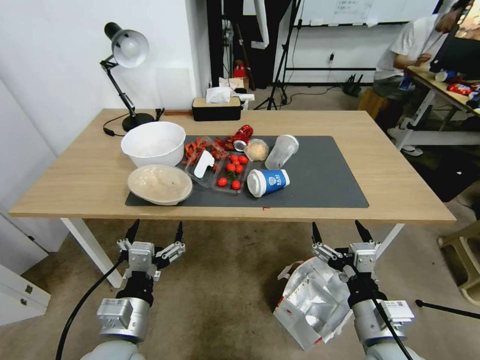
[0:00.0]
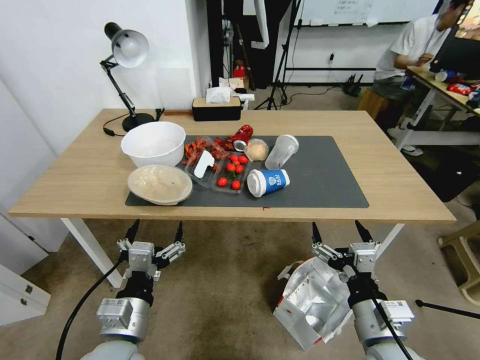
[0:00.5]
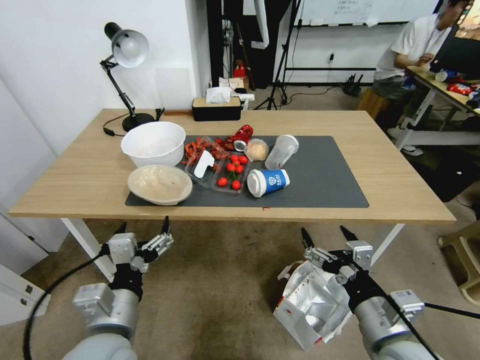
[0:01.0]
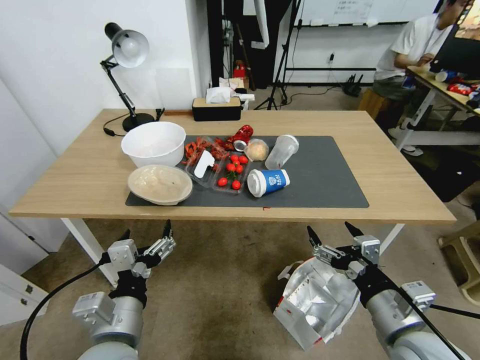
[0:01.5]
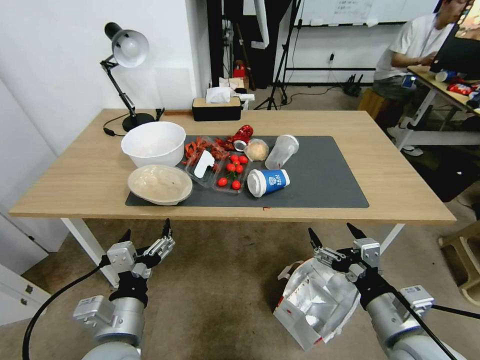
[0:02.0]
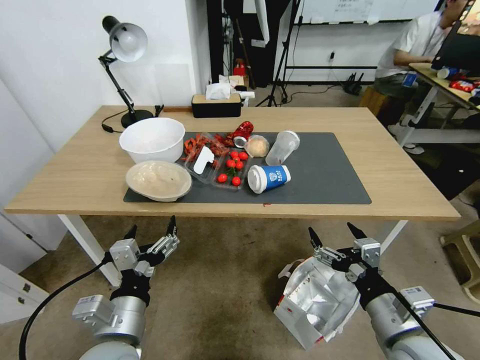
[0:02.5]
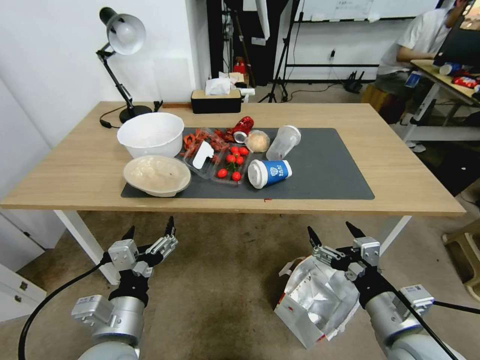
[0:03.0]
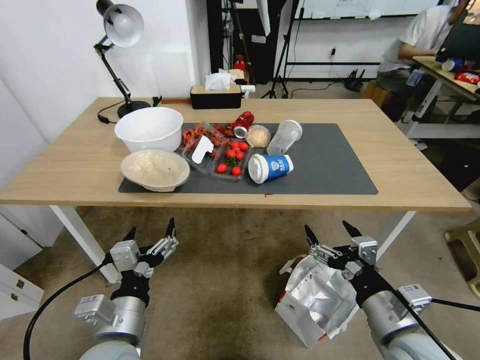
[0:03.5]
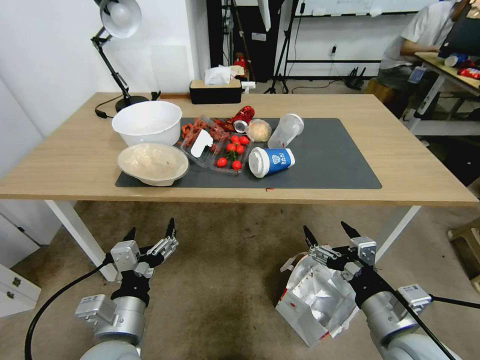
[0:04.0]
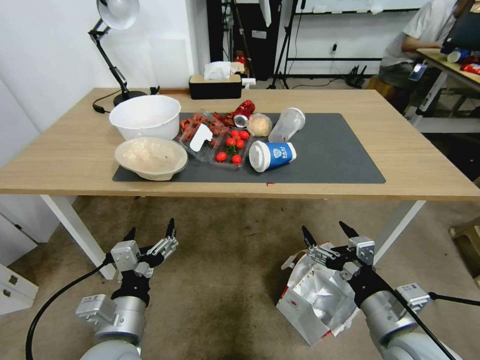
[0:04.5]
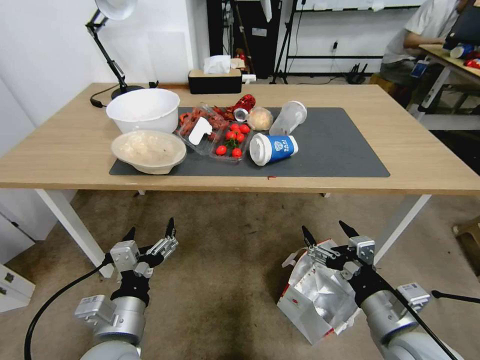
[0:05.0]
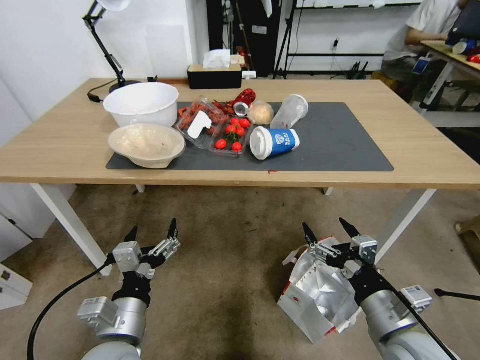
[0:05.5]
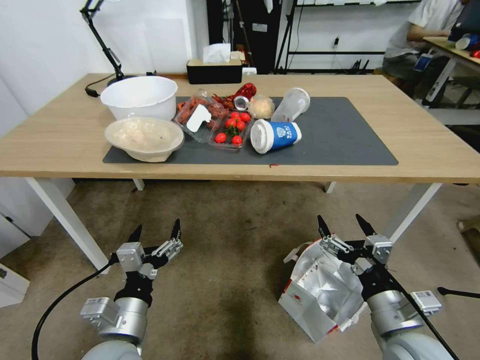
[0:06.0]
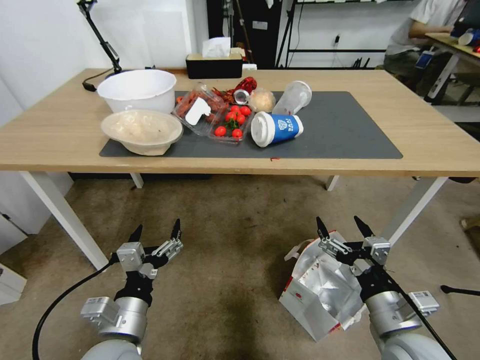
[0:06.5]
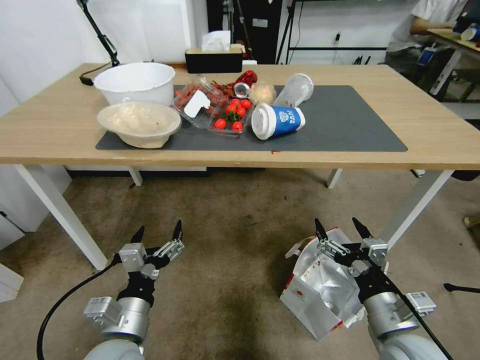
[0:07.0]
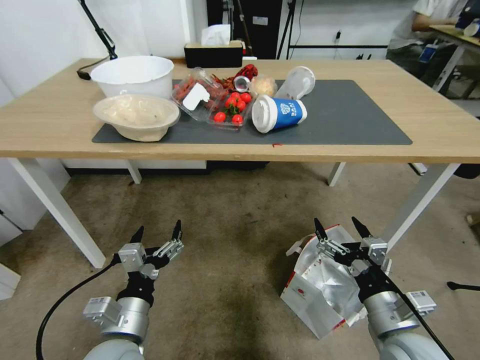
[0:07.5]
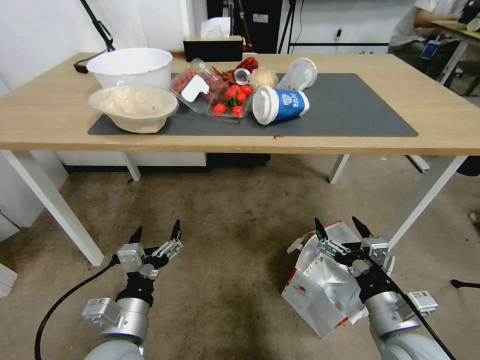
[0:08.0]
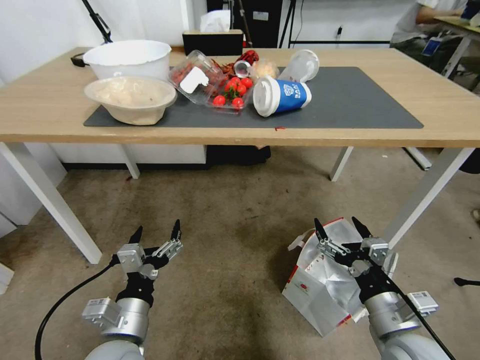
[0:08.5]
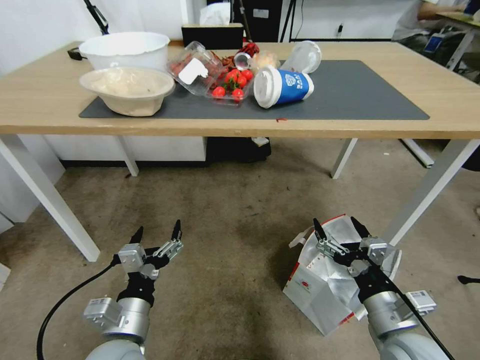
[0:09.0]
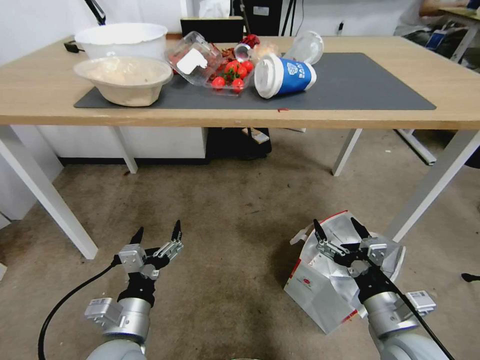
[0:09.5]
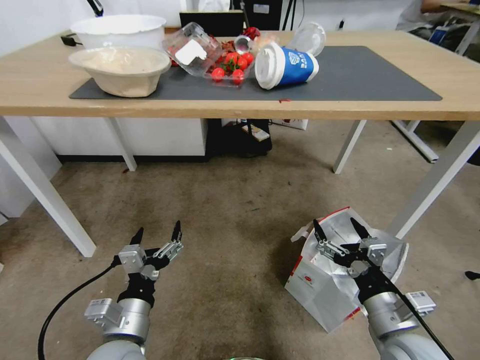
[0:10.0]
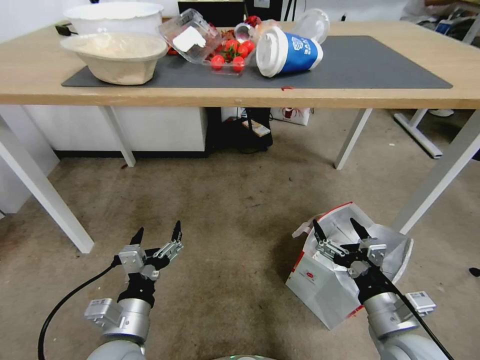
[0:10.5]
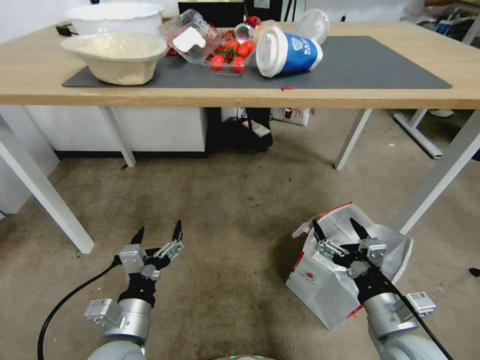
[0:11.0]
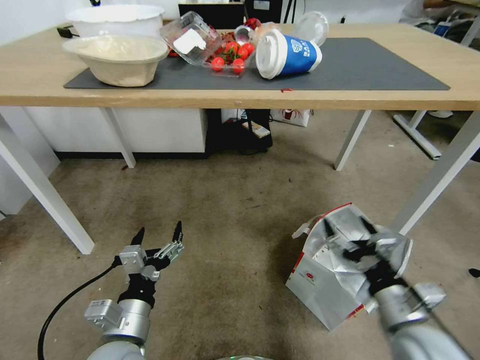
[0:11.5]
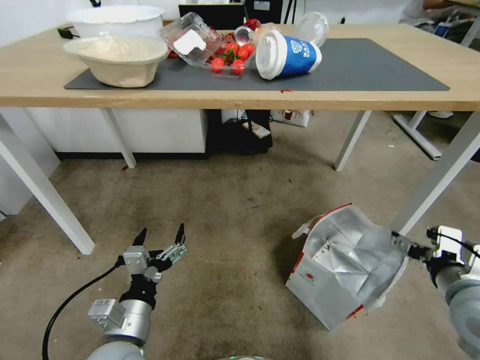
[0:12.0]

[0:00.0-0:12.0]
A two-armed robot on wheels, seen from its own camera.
Task of the whole recording: Pick up the food delivery bag from the floor and place it on the table.
0:10.0 to 0:12.0: The right gripper heads to the right and upward, covering about 10 cm.

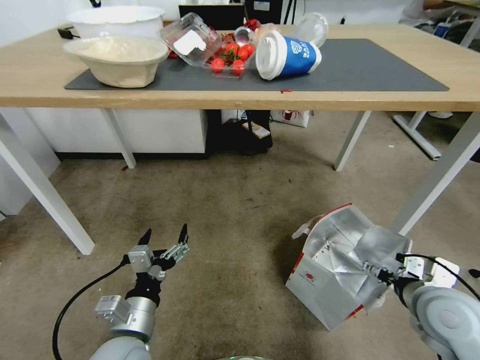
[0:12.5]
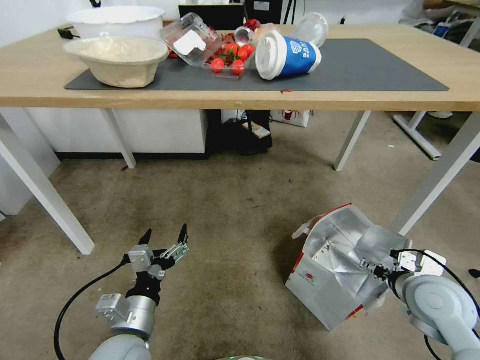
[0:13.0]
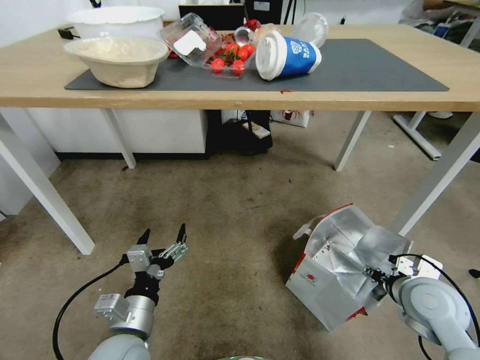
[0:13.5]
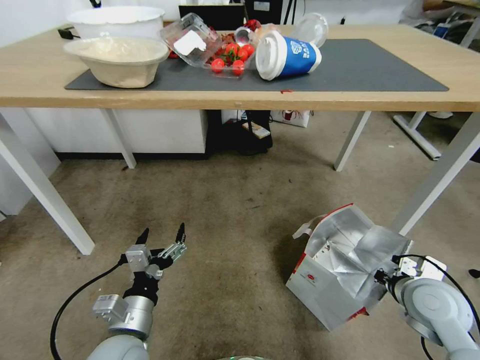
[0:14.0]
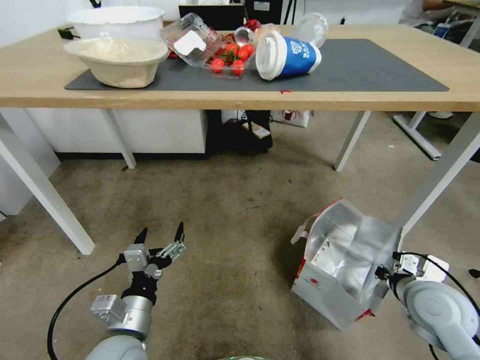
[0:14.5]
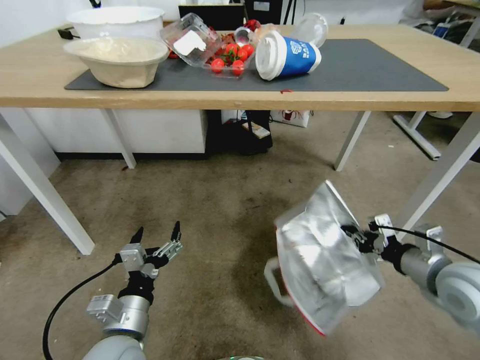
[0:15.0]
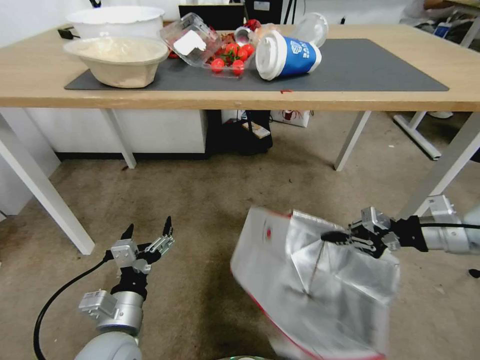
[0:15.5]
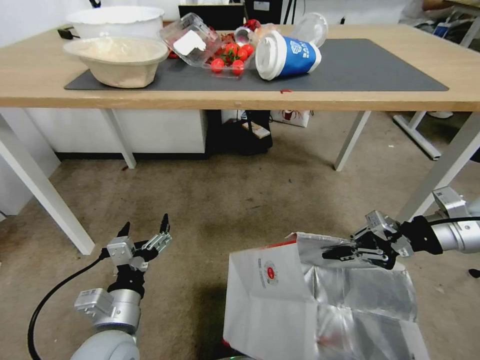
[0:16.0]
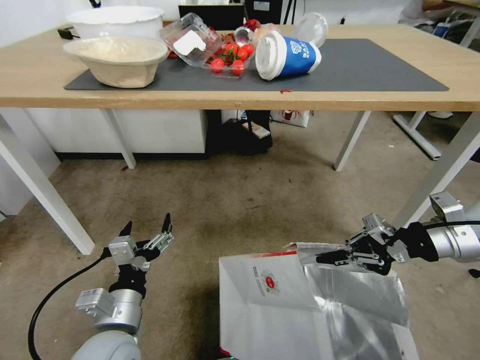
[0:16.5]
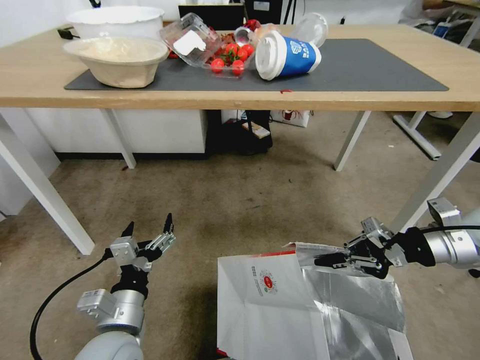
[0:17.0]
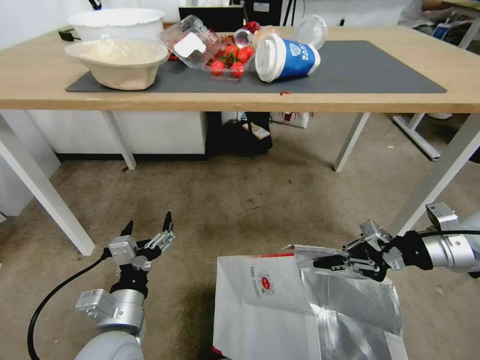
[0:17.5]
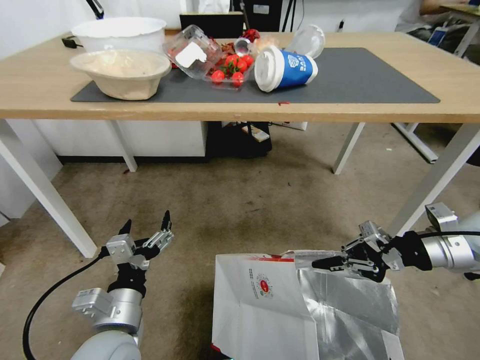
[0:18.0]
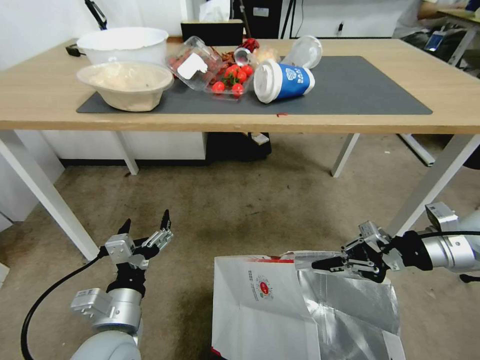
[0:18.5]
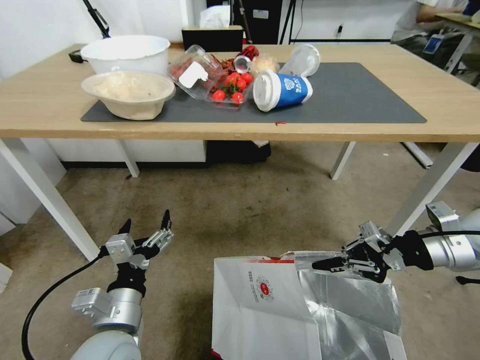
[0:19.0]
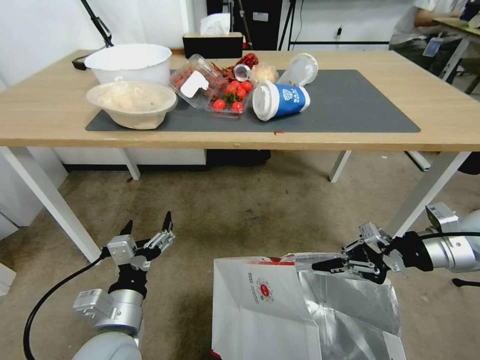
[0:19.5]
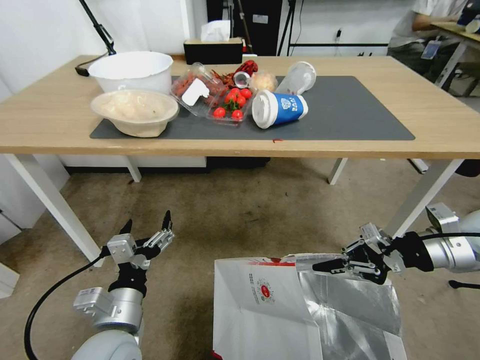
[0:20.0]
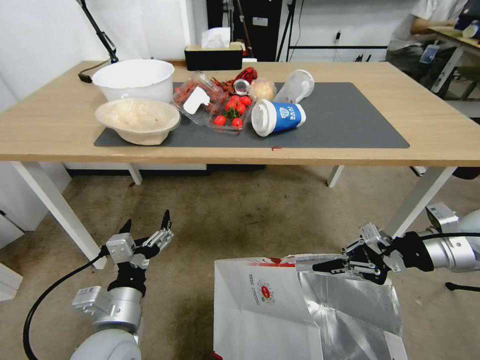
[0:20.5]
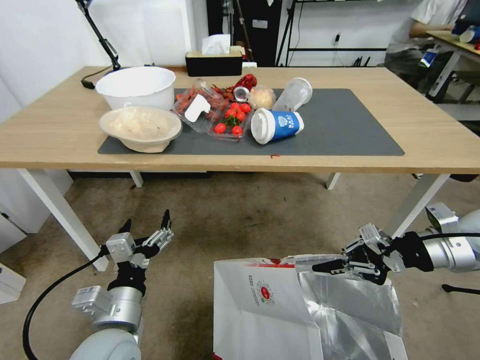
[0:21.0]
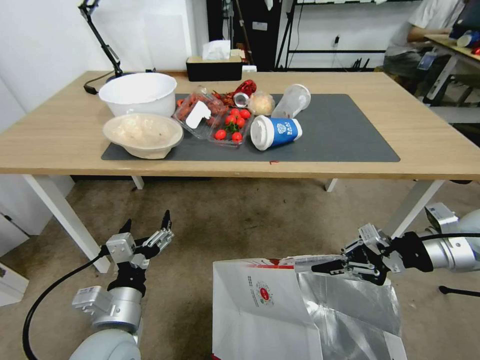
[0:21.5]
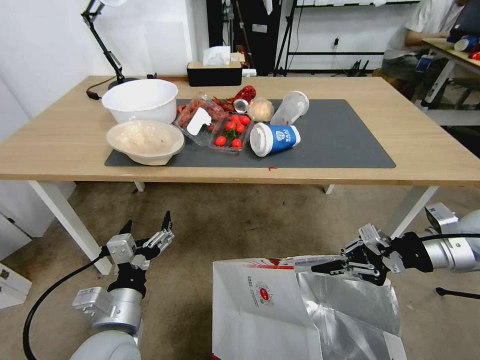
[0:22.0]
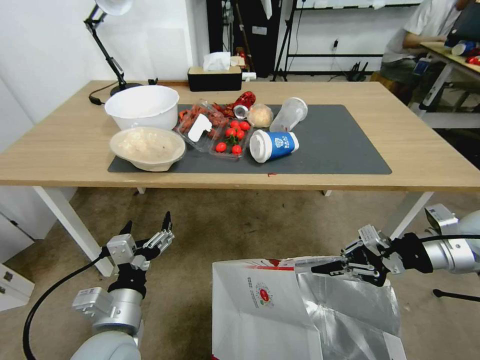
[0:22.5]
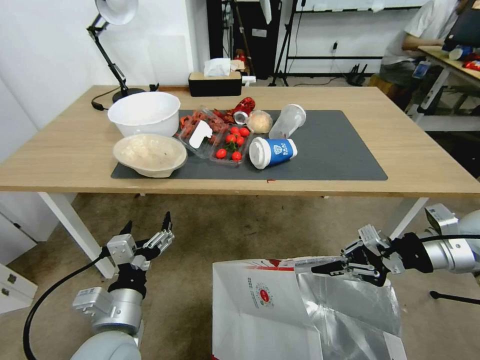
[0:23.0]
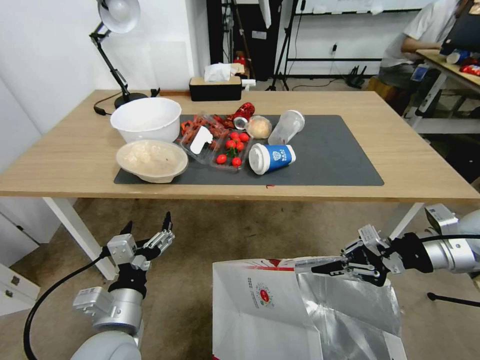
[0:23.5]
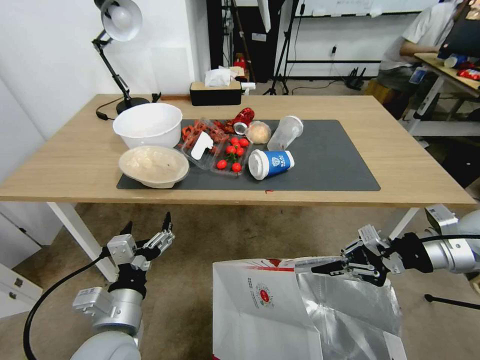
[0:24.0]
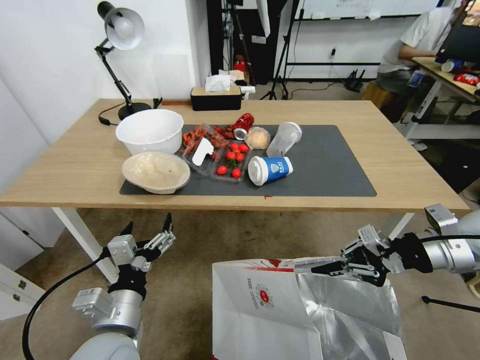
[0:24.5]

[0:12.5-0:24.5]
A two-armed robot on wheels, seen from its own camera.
Task of the whole recording: Pick up the food delivery bag from the floor and place it on the table.
0:12.5 to 0:14.5: The right gripper closes.
0:14.5 to 0:16.5: The right gripper goes about 15 cm upward and forward.

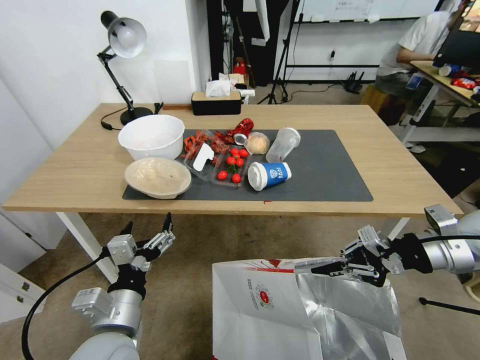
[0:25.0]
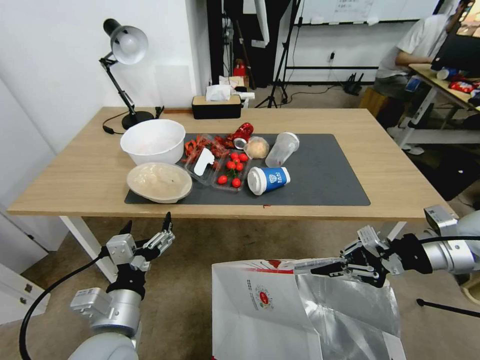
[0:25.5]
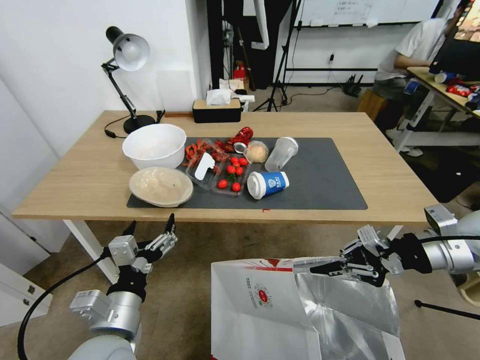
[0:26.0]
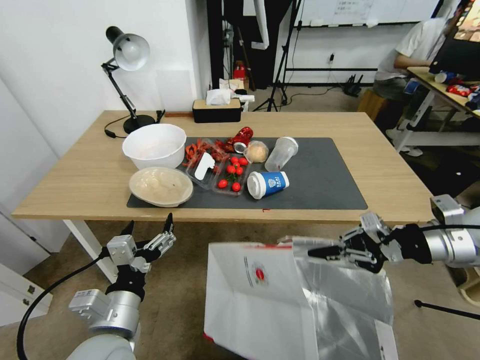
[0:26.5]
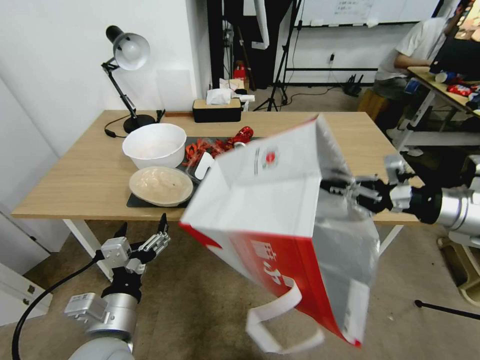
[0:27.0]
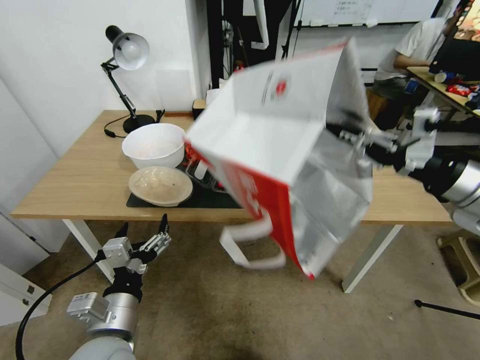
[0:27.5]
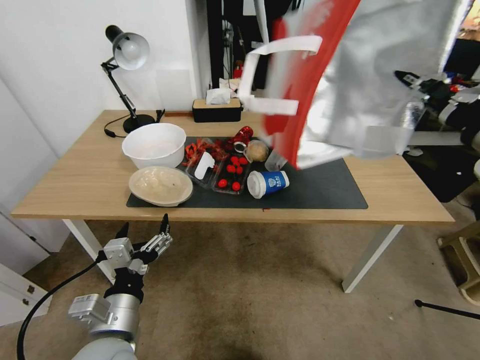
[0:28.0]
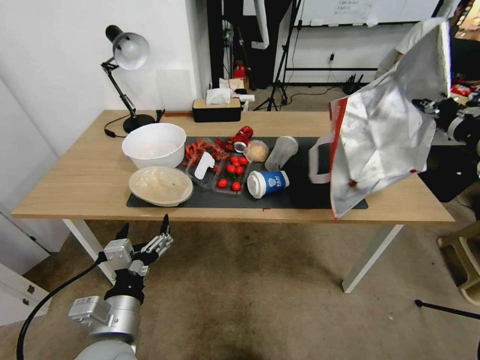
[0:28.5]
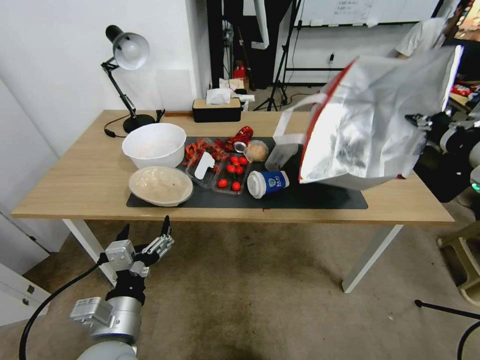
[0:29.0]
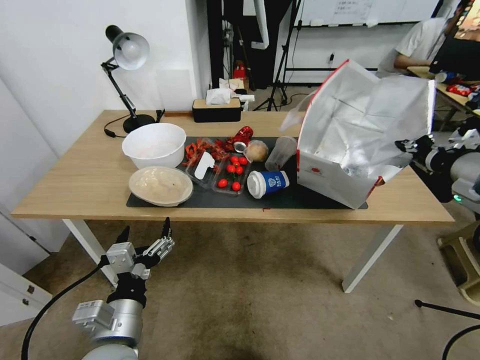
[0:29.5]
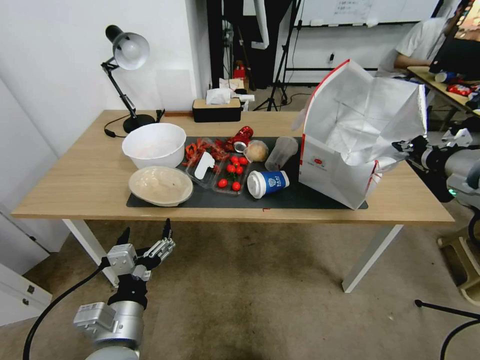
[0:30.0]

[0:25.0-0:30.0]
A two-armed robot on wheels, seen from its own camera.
Task of the whole recording: Pick up the food delivery bag from the floor and place it on the table.
0:25.0 to 0:27.5: The right gripper travels upward by approximately 10 cm.
0:27.5 to 0:30.0: The right gripper shifts about 5 cm forward.
